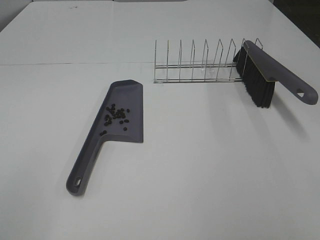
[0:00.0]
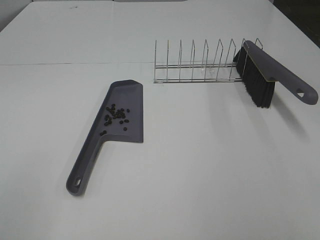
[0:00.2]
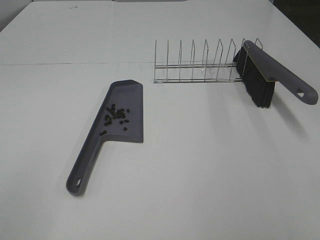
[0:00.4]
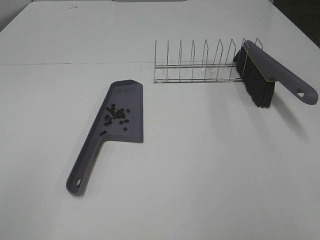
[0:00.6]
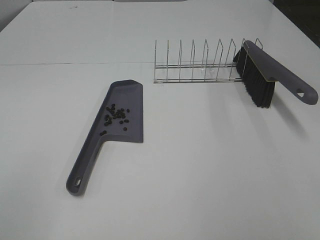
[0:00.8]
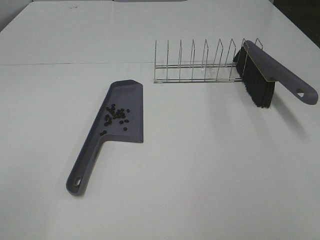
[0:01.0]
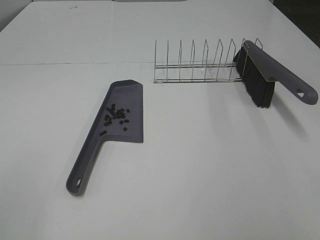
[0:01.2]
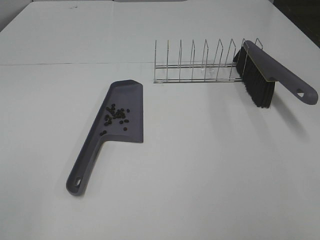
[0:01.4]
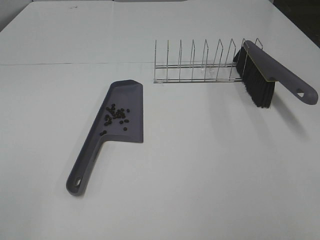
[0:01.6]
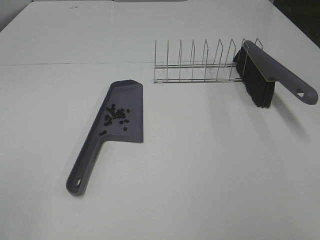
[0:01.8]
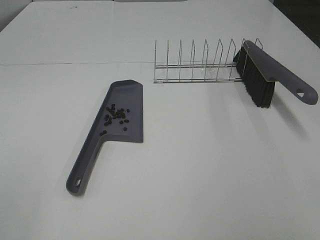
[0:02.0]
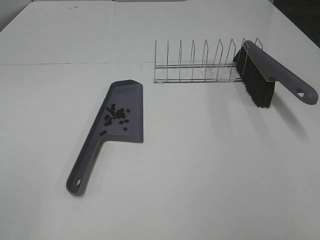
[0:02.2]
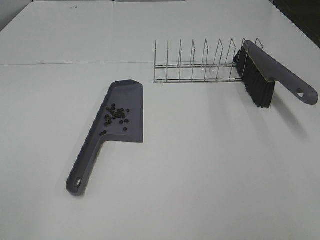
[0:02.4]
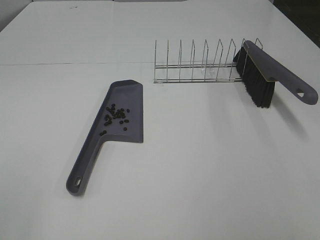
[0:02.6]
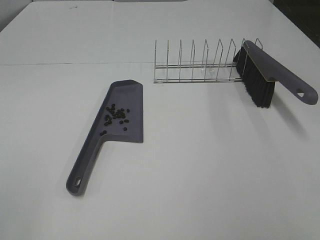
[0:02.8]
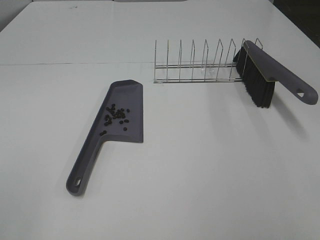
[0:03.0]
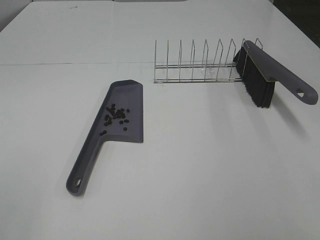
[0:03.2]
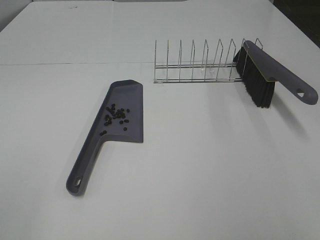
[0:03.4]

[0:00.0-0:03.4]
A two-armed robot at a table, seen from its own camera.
Task of the whole recording: Sweep Coffee Bean.
0:01.6 to 0:03.4: Neither gripper changes place.

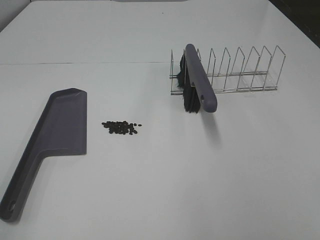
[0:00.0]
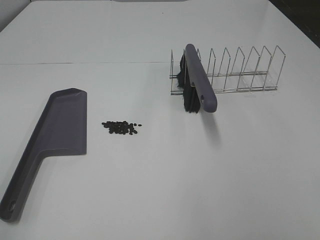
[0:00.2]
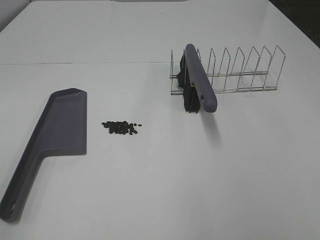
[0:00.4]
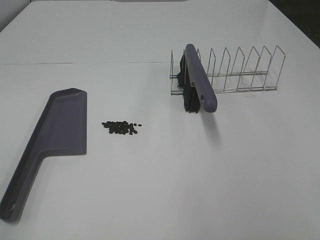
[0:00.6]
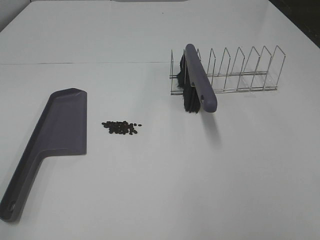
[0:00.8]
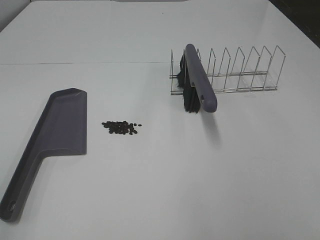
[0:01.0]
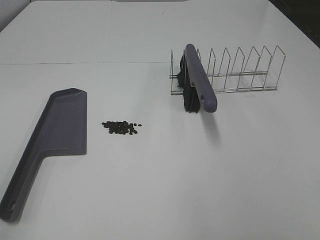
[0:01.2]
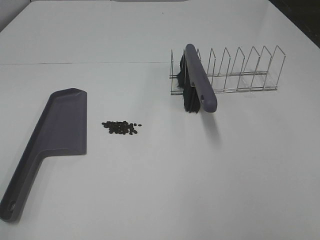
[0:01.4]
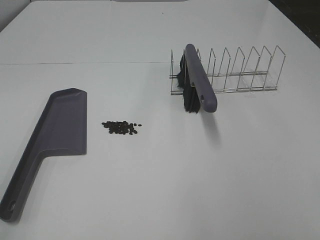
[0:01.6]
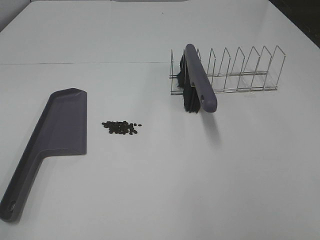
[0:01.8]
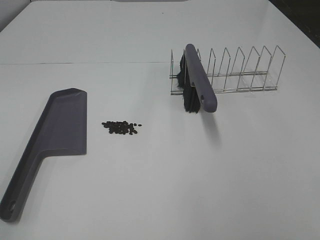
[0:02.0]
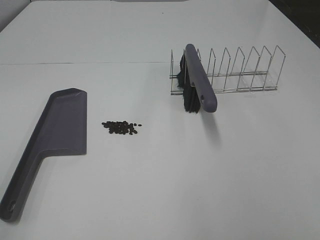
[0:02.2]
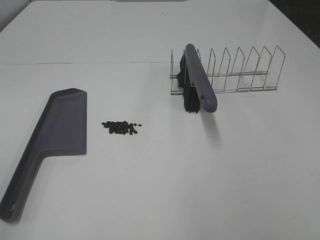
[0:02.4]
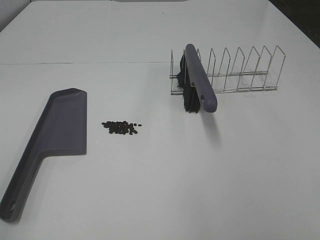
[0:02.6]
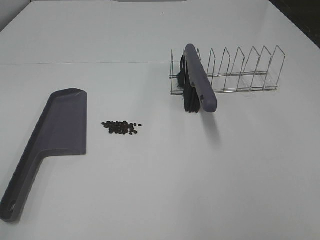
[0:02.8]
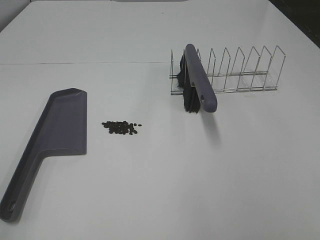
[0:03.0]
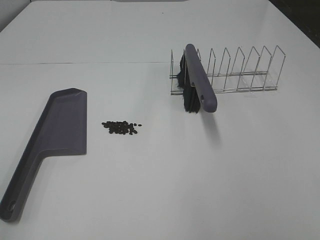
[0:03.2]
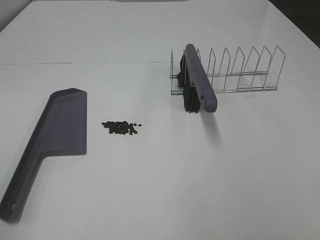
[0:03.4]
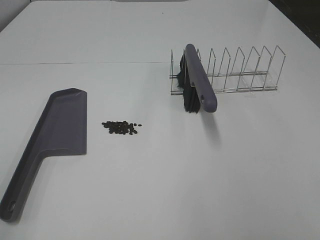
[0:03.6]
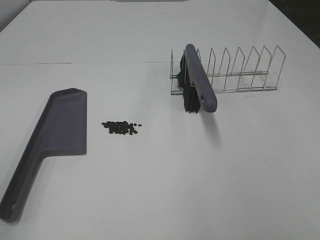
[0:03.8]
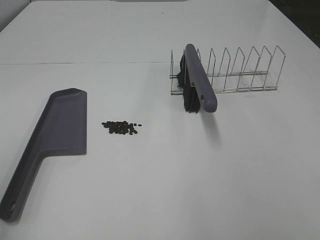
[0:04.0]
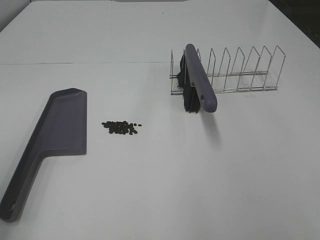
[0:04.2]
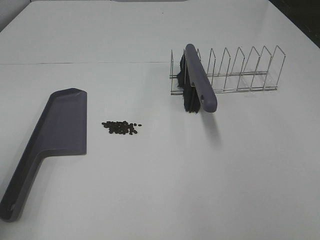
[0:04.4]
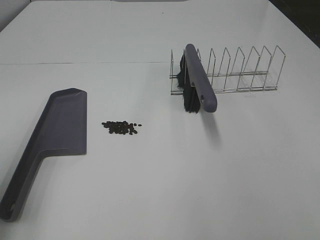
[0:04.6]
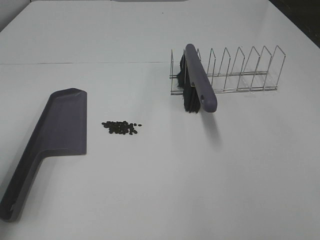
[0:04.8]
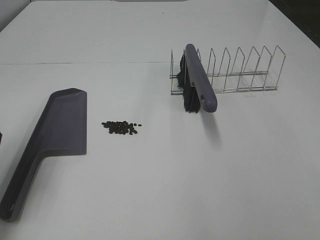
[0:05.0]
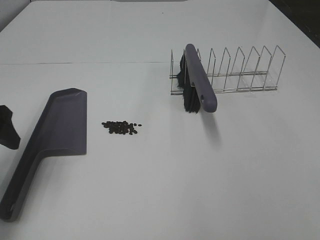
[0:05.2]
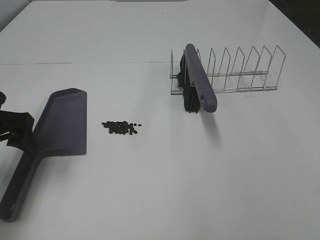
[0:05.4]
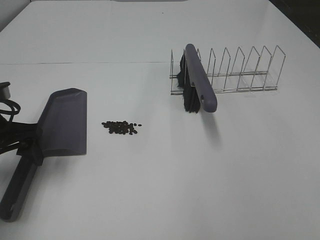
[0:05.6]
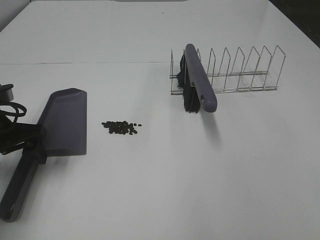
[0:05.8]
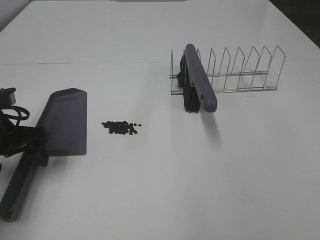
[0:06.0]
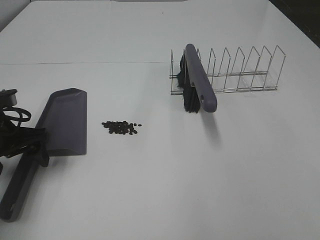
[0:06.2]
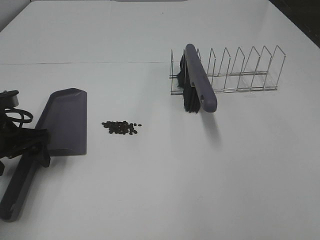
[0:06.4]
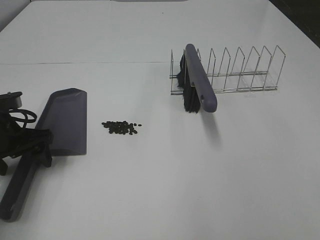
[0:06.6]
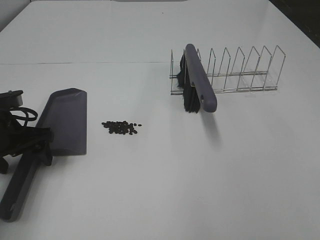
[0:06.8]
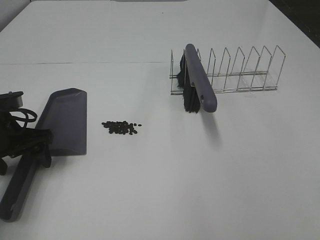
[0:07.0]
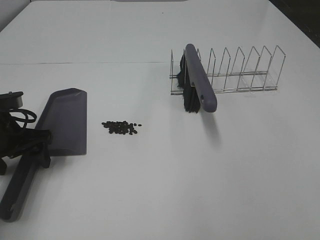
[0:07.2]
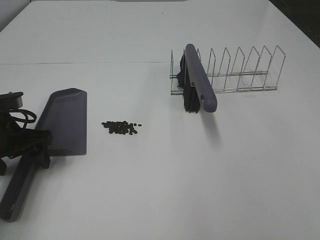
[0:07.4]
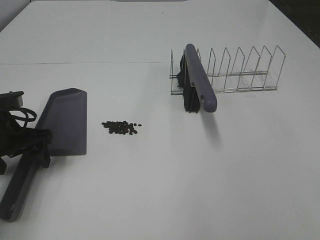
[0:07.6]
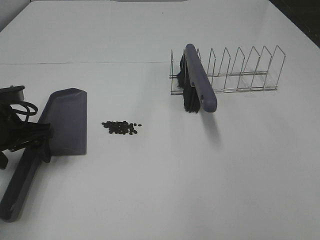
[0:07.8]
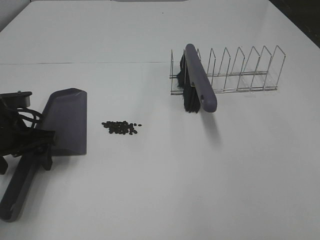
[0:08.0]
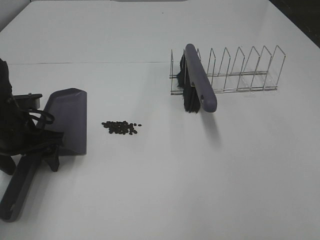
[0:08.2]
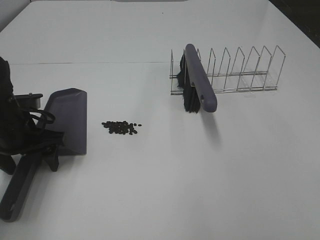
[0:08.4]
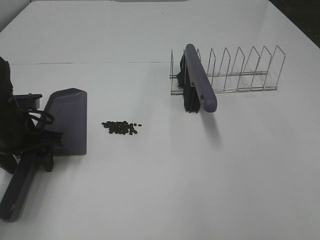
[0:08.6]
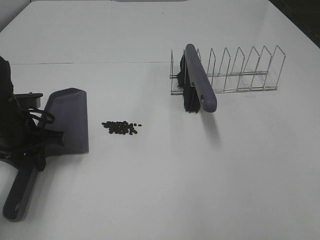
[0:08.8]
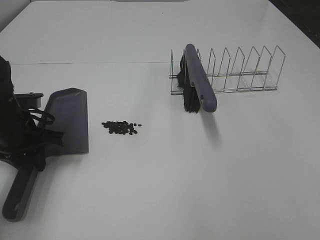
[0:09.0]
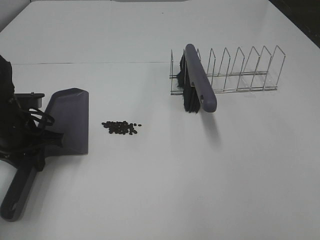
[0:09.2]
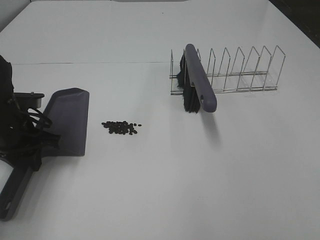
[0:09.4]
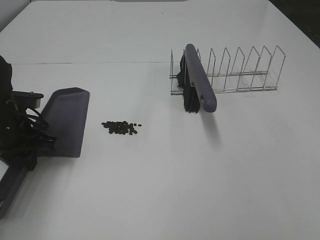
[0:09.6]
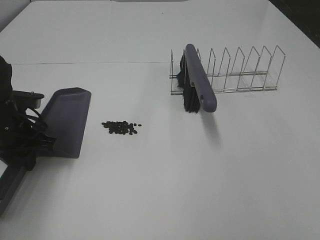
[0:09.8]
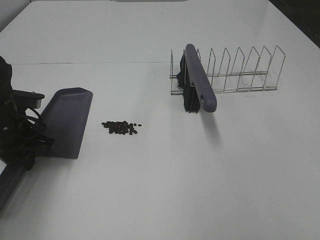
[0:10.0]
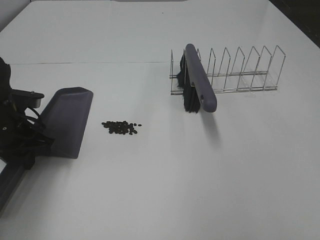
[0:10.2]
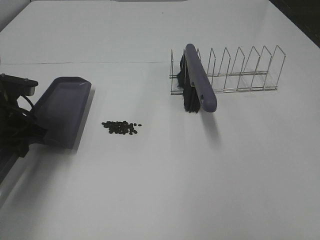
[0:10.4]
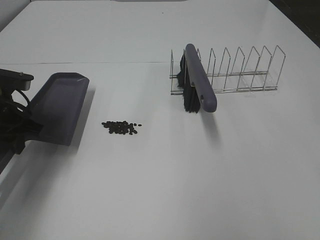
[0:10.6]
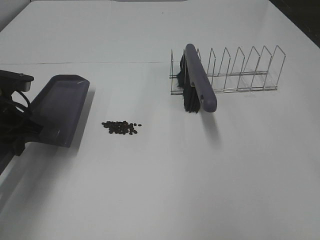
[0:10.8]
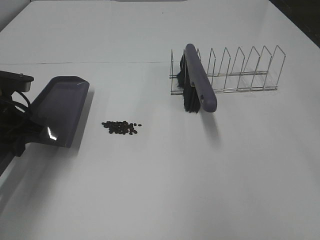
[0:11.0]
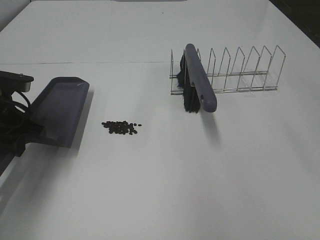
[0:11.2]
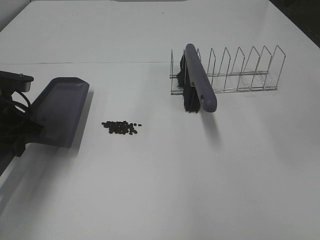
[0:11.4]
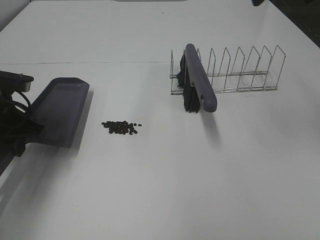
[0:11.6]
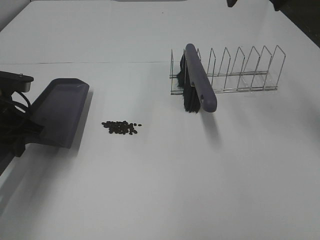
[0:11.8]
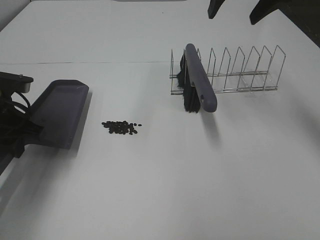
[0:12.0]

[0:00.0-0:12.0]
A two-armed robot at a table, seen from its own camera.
Task of the whole recording: Sweep Coffee Bean.
Step, 0:00.0 to 0:09.2: Left hand: grab the dustpan.
0:00.0 to 0:03.0: The two grippers keep their place.
0:04.4 to 0:06.0: The left gripper goes some 20 cm forward and downward.
0:06.0 to 0:07.6: There are only small adjustments of the grippers.
0:07.6 to 0:09.0: The left gripper closes its fingers.
0:10.4 to 0:12.0: The right gripper travels forward by roughly 30 cm.

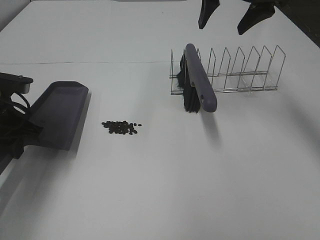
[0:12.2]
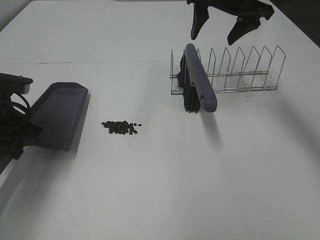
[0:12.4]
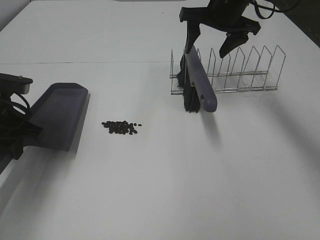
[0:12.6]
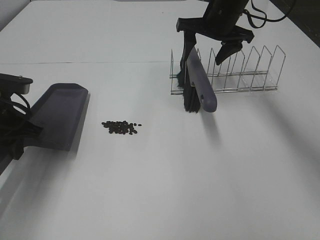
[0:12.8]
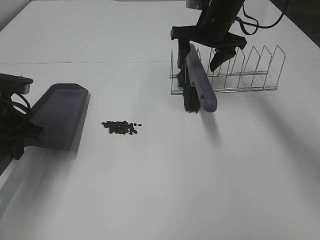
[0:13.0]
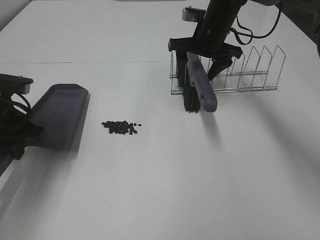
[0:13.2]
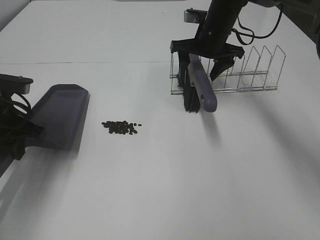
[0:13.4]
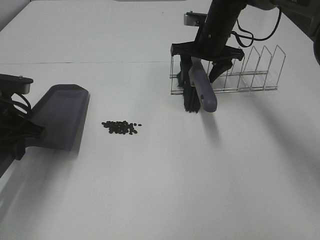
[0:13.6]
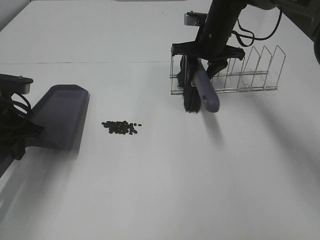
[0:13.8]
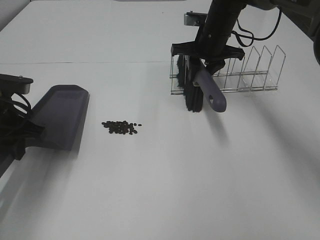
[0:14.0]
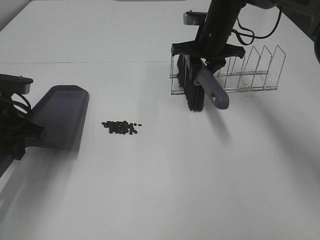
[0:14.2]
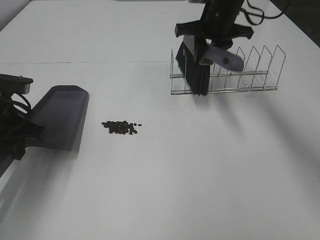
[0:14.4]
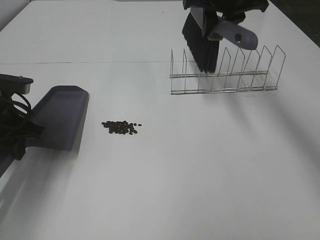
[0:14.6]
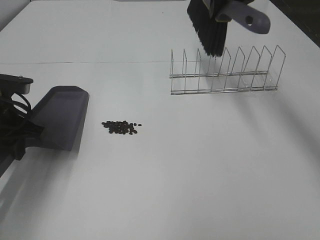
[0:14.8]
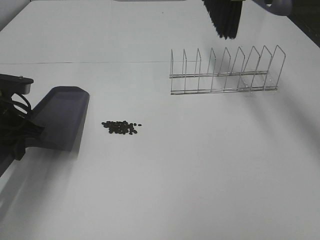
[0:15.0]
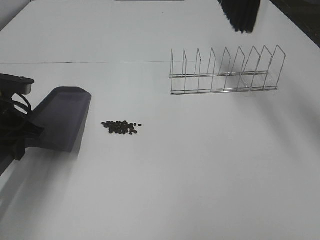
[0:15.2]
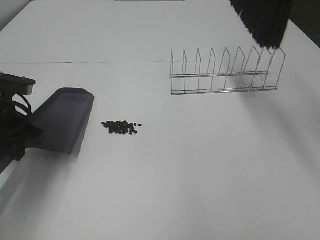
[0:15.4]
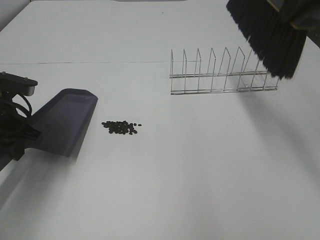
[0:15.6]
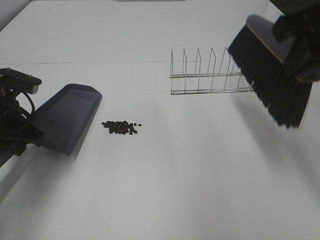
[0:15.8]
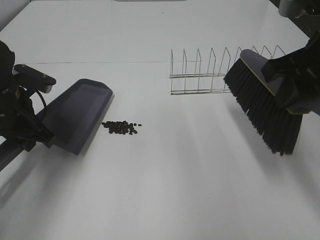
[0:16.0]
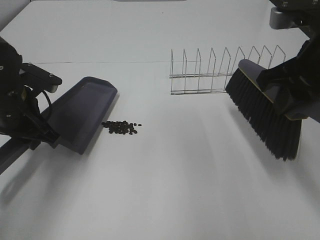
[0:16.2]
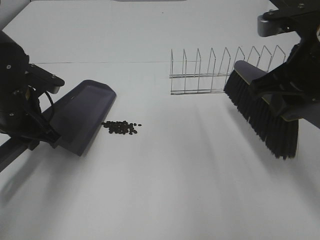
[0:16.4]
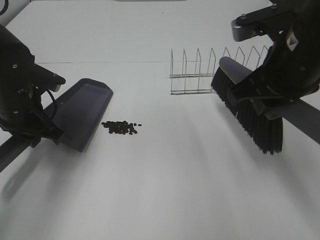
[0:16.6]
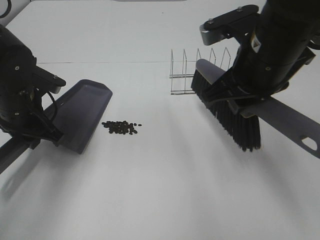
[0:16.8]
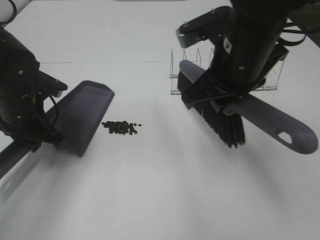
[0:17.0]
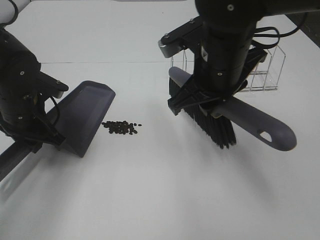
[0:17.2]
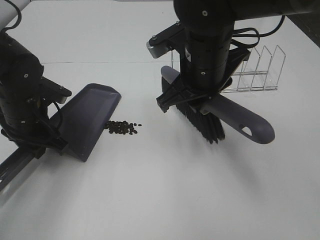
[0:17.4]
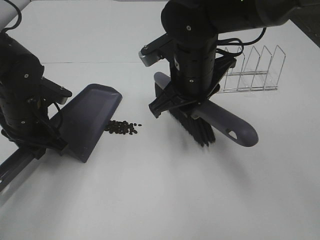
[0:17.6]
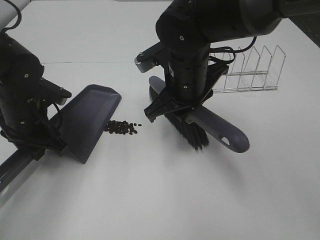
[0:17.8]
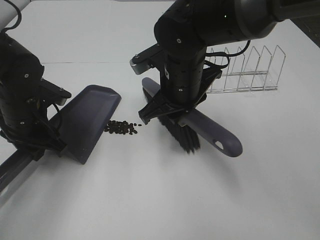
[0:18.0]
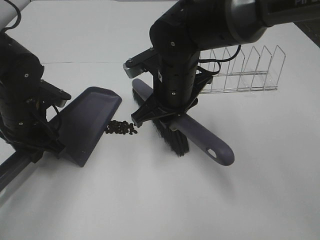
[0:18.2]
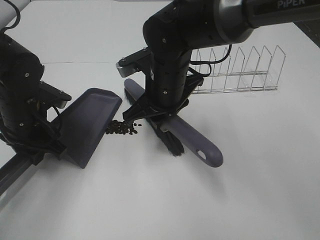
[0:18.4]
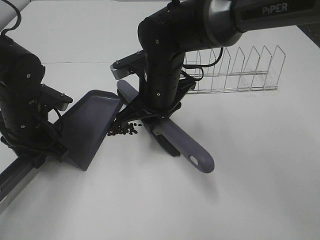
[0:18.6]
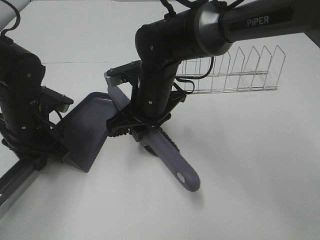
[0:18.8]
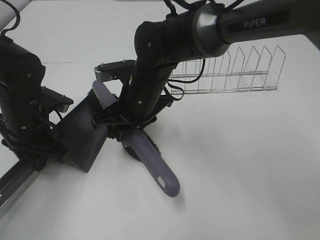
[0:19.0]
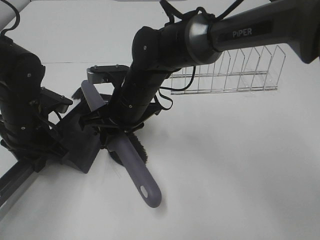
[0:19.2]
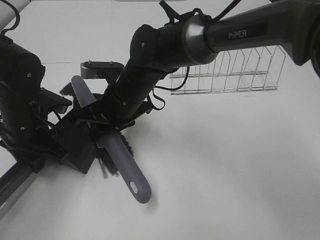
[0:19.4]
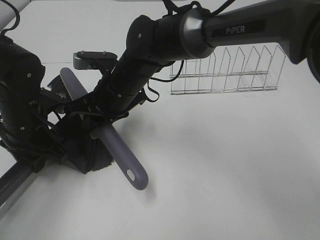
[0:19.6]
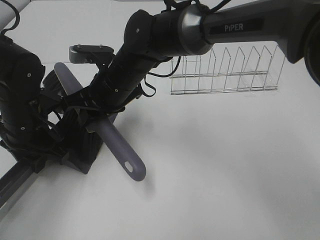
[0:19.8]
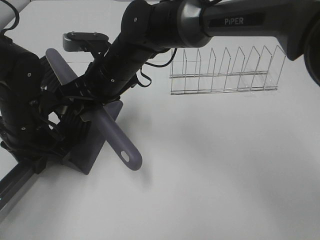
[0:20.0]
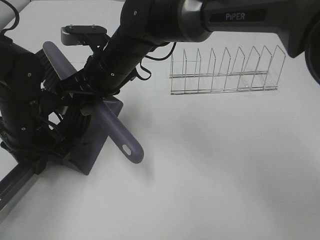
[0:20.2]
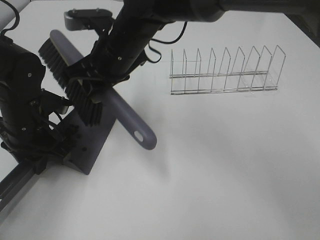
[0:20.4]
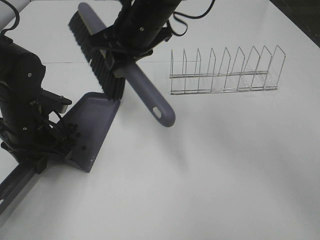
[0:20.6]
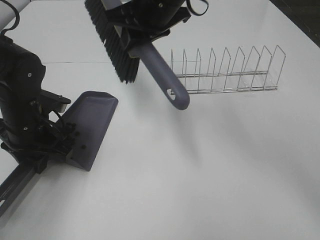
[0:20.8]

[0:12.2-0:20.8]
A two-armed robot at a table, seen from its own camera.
Task of the whole recording: Sweep Coffee Bean.
Step, 0:14.2 to 0:20.2: Right hand:sweep the coffee beans into the dustpan.
0:12.2 to 0:13.6: The right gripper is displaced downward and forward by about 15 cm.
0:13.6 to 0:15.0: The right gripper goes some 20 cm upward, and closes its fingers.
0:15.0 to 0:16.6: The right gripper is displaced backward and downward by approximately 20 cm.
0:16.6 to 0:18.0: The right gripper shifts roughly 15 cm to the left, downward and forward.
0:18.0 to 0:19.4: The right gripper heads to the left, covering about 10 cm.
0:19.4 to 0:20.8: The right gripper moves upward and to the right, approximately 15 cm.
